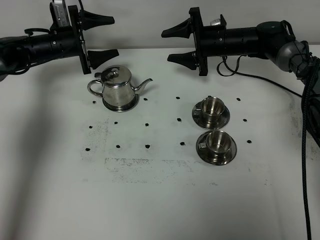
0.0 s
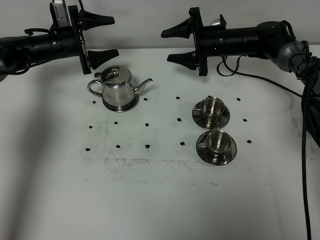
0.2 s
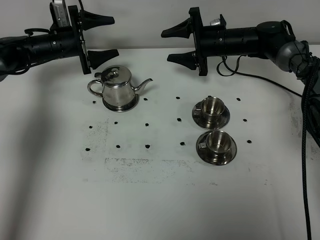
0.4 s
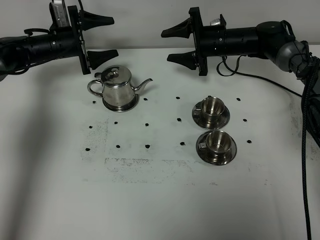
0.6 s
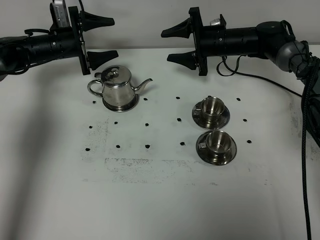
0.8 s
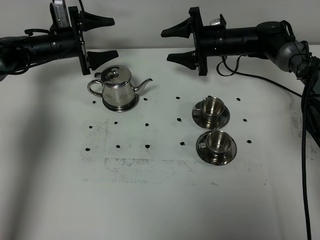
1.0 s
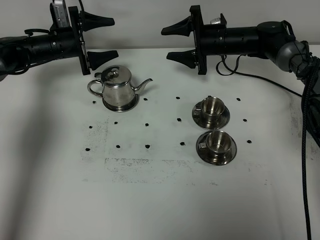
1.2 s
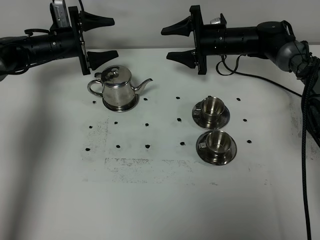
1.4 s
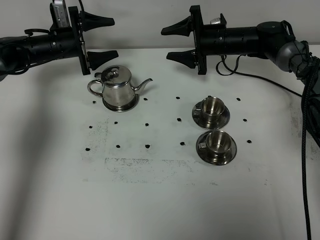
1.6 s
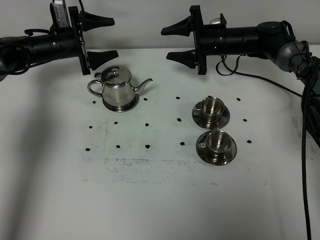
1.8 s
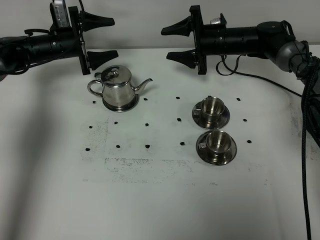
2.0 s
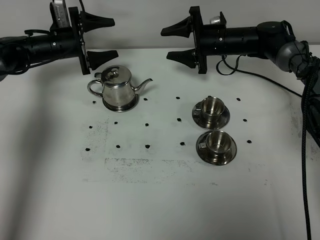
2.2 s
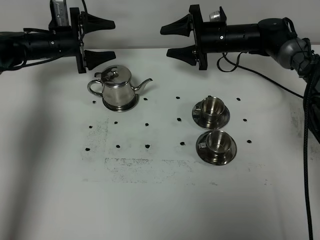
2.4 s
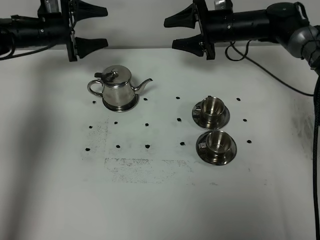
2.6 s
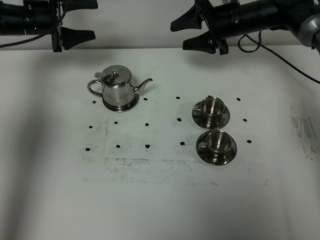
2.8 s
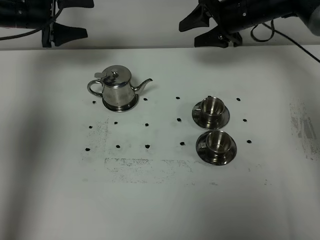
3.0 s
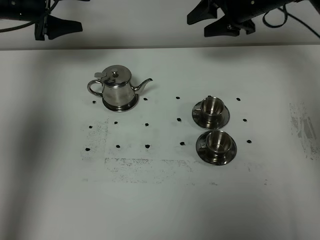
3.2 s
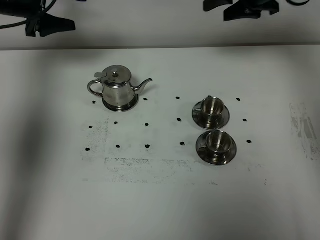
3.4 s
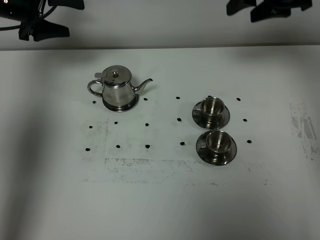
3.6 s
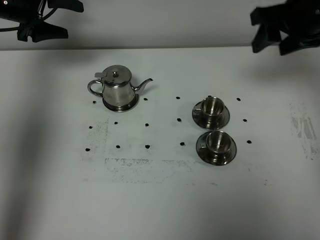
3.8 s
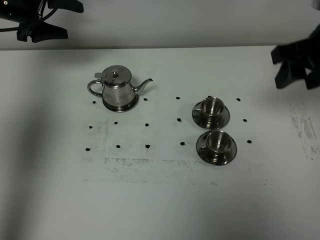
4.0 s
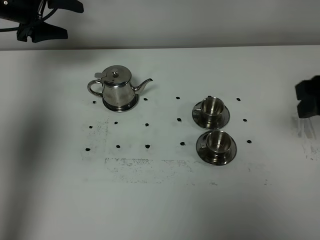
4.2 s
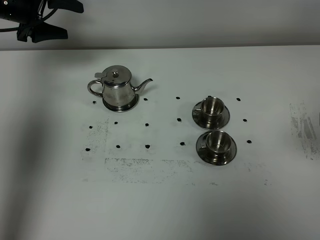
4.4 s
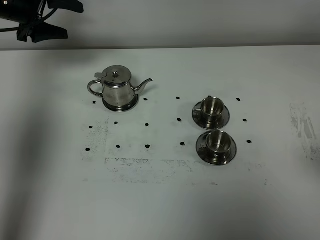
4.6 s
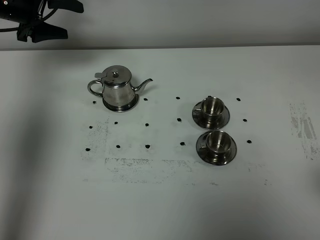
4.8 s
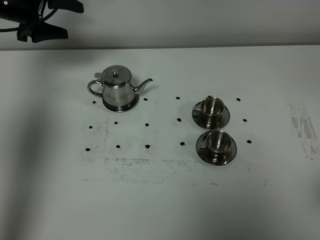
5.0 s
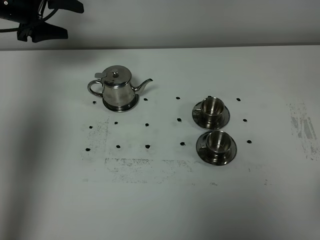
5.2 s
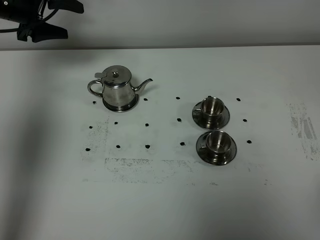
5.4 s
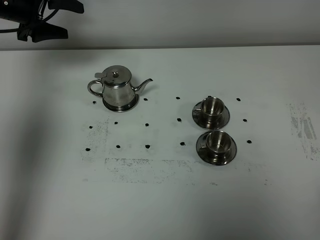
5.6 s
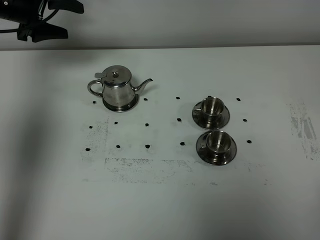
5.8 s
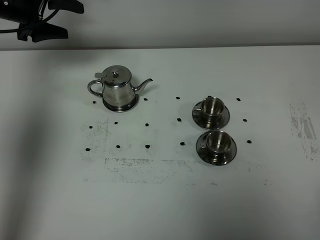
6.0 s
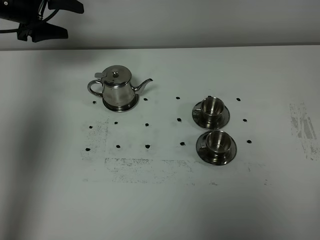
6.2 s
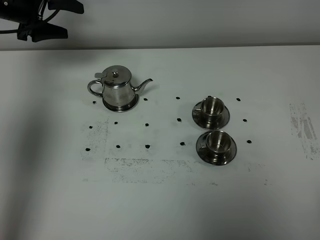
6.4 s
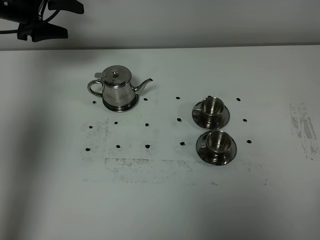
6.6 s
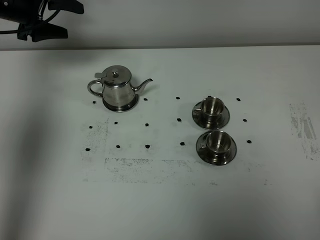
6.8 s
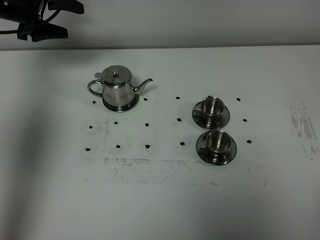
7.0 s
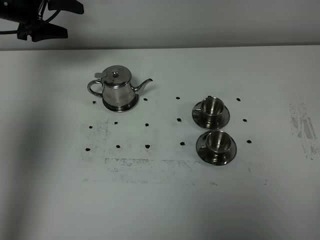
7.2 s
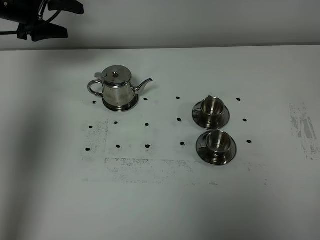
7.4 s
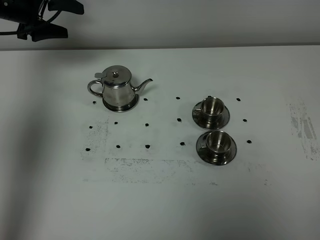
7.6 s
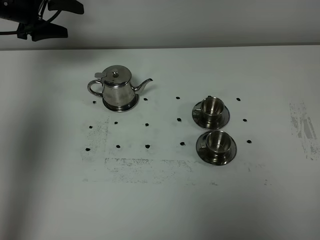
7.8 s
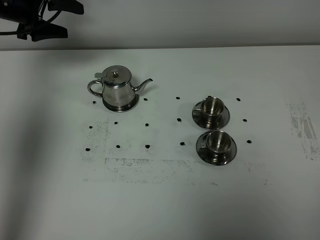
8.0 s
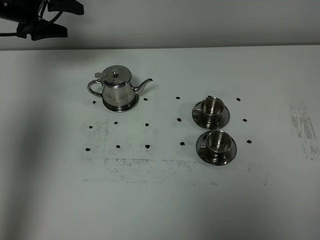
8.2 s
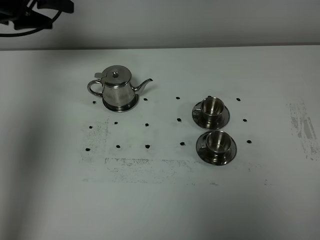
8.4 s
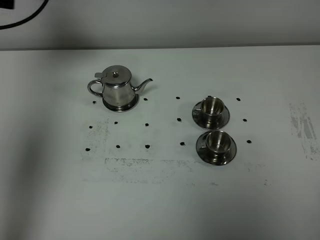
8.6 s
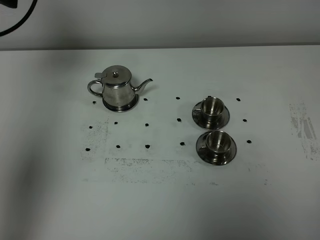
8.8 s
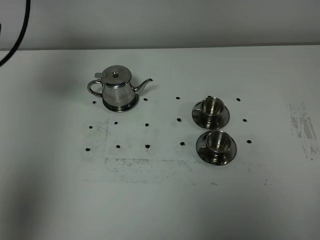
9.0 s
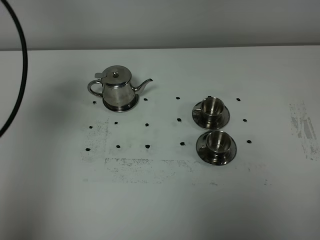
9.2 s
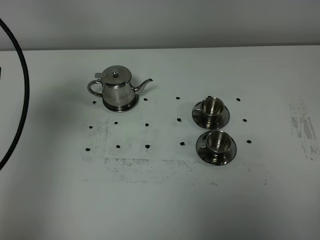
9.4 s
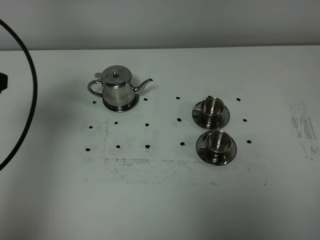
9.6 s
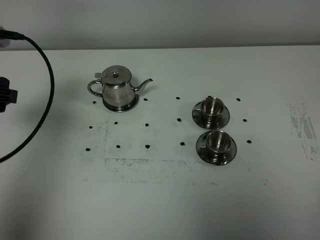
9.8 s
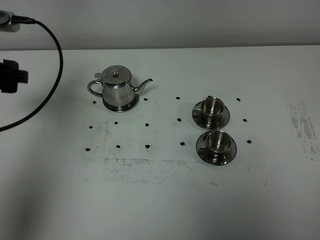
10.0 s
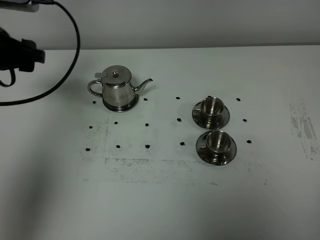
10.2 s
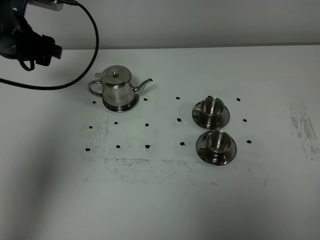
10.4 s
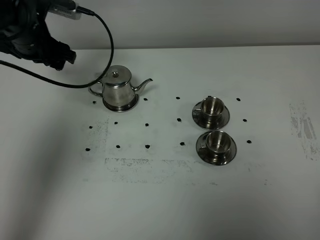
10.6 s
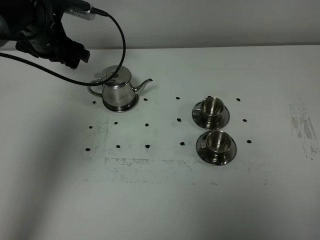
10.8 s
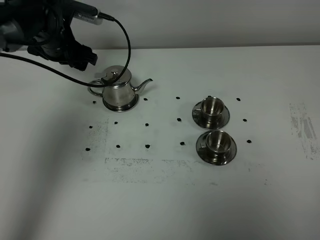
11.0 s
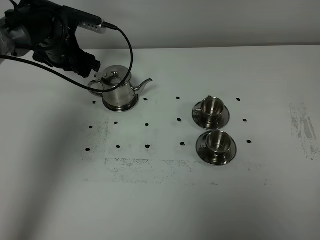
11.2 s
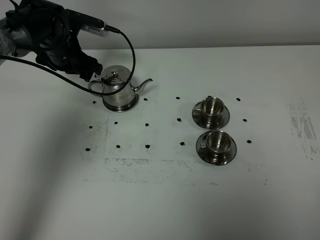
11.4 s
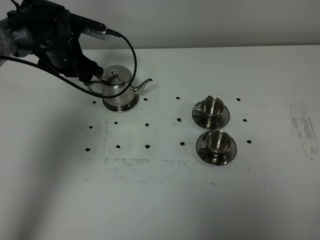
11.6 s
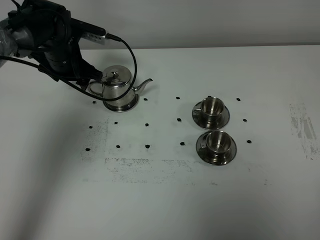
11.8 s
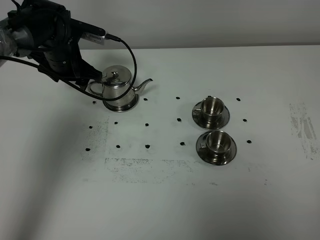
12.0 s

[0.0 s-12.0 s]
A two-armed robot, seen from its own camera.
Task of the whole recording: grasp the stainless steel teapot and pour the tea into the two stainless steel teacups one by one, put the stainless steel teapot back in its original place.
0.0 to 1.6 s: Both grippers stay put.
1.6 to 3.0 s: The two grippers go about 10 cm upward.
3.0 to 4.4 s: The right gripper travels backward by about 35 cm.
4.4 to 6.0 s: The right gripper goes some 15 cm backward.
6.0 to 7.6 s: The two grippers keep their place.
7.6 to 9.0 s: The left gripper is displaced backward and upward by about 25 cm.
9.0 to 10.4 s: The left gripper is displaced downward, forward and to the right by approximately 20 cm.
10.4 to 12.0 s: The left gripper travels downward and forward by about 10 cm.

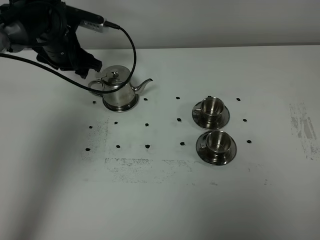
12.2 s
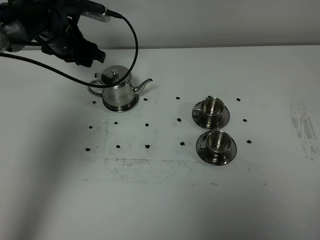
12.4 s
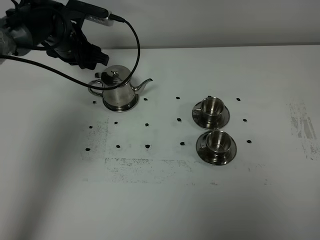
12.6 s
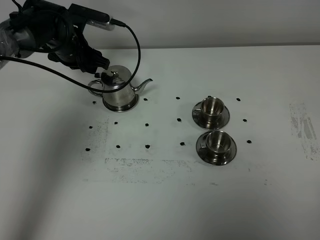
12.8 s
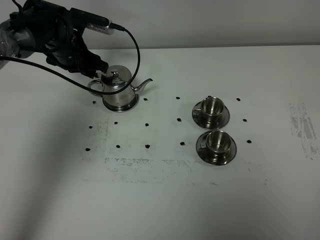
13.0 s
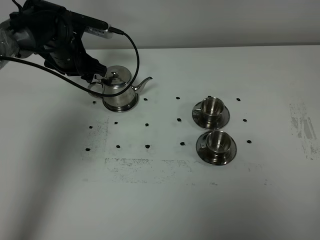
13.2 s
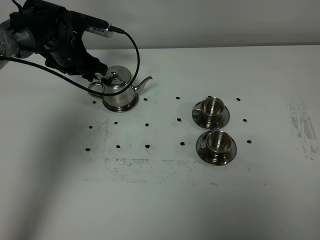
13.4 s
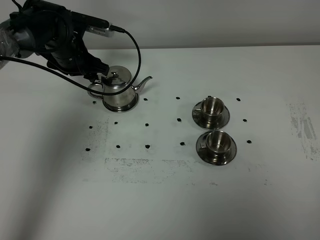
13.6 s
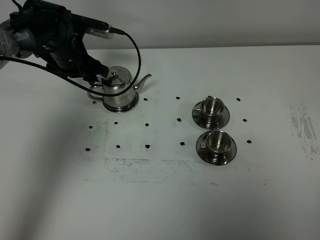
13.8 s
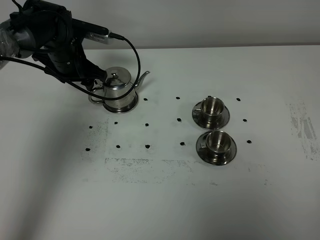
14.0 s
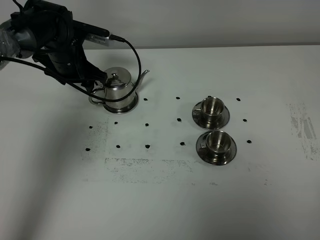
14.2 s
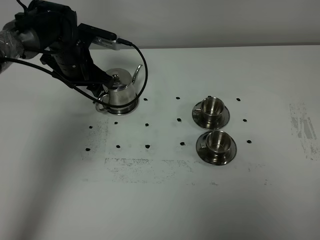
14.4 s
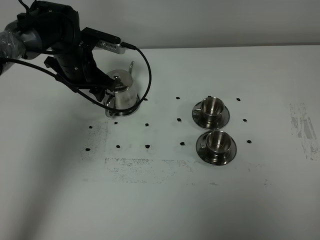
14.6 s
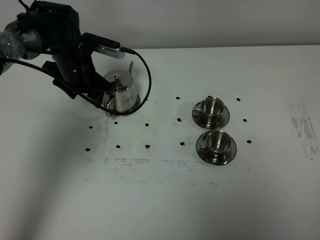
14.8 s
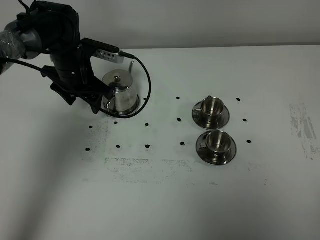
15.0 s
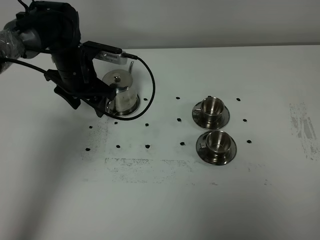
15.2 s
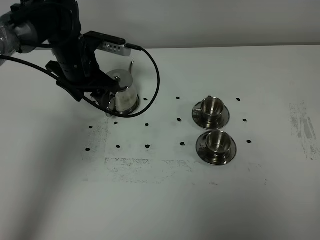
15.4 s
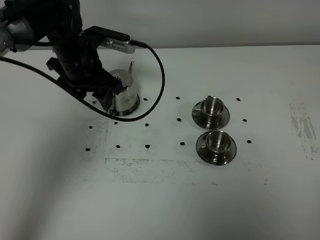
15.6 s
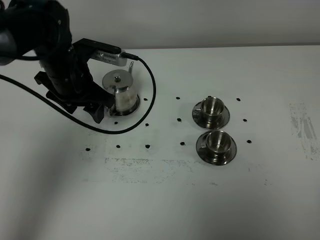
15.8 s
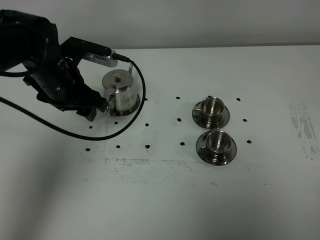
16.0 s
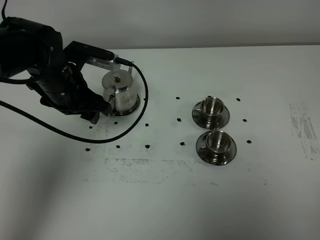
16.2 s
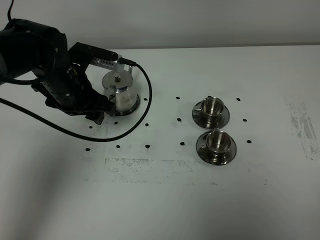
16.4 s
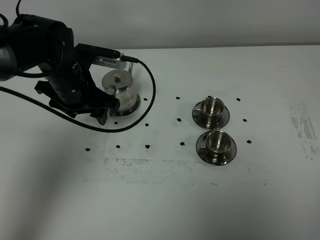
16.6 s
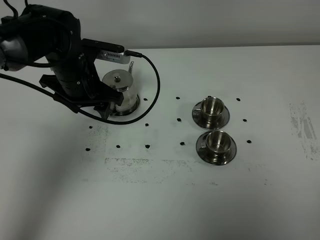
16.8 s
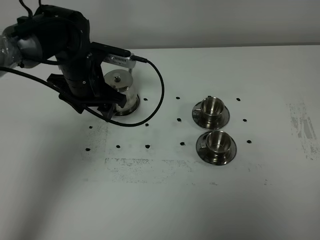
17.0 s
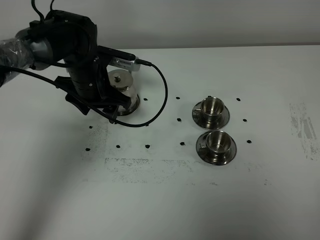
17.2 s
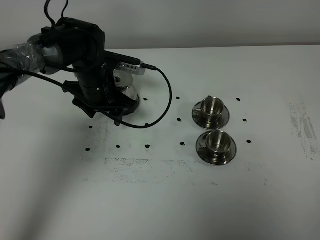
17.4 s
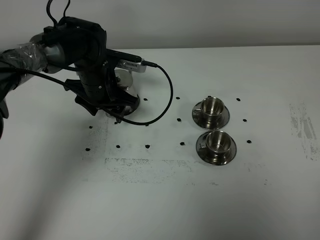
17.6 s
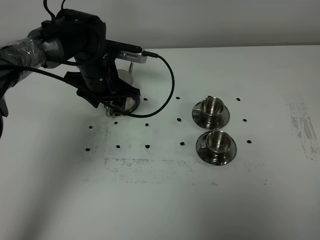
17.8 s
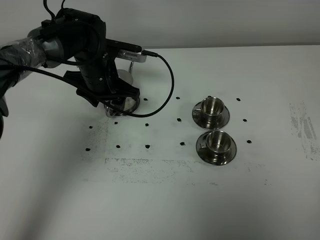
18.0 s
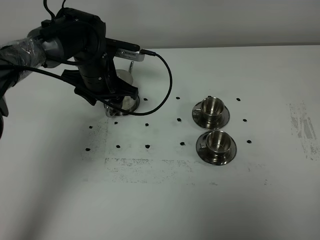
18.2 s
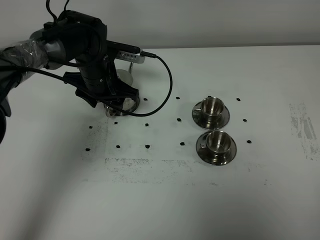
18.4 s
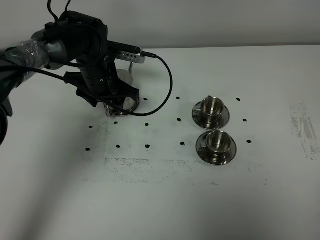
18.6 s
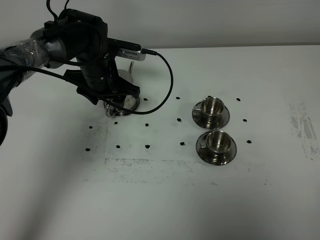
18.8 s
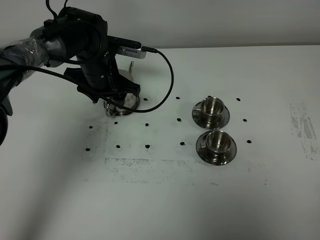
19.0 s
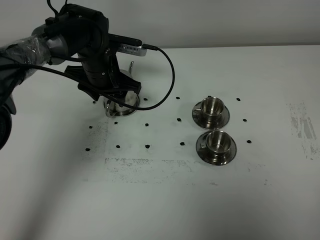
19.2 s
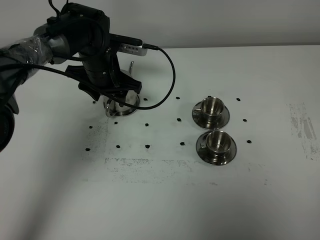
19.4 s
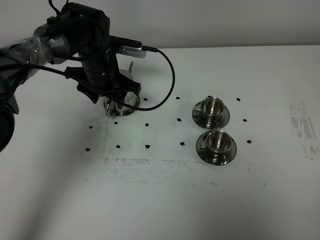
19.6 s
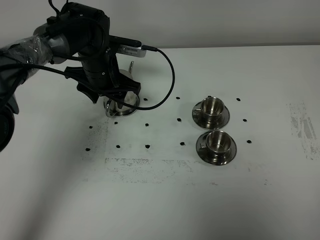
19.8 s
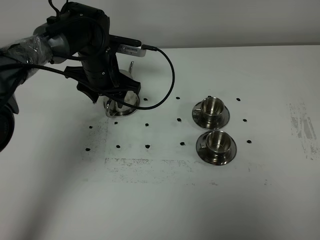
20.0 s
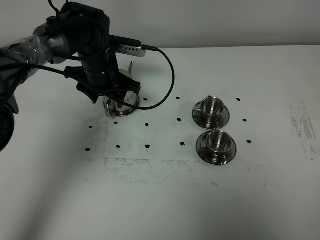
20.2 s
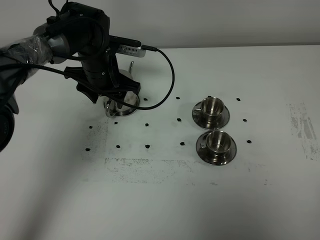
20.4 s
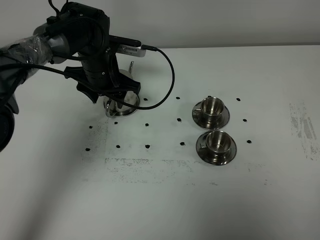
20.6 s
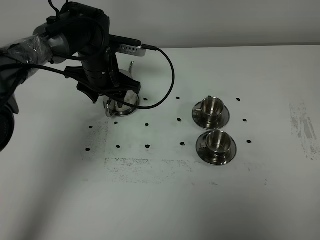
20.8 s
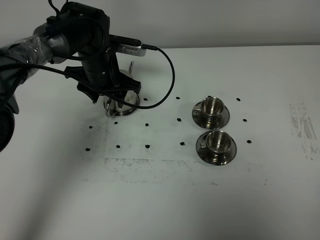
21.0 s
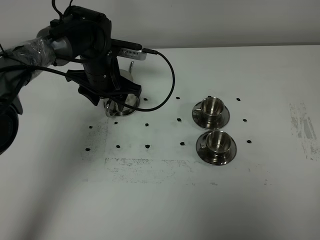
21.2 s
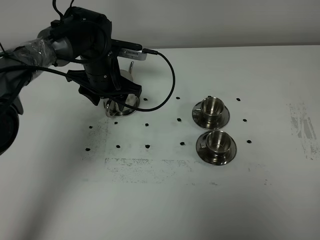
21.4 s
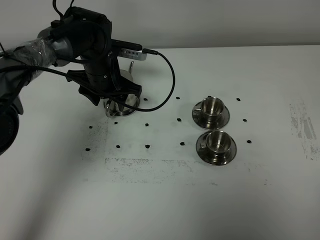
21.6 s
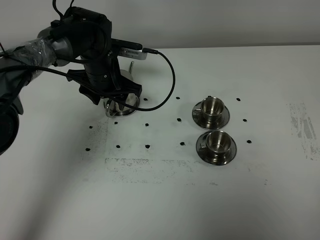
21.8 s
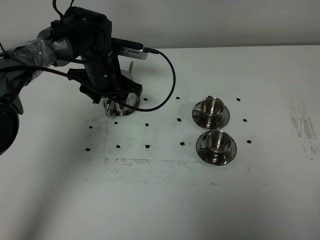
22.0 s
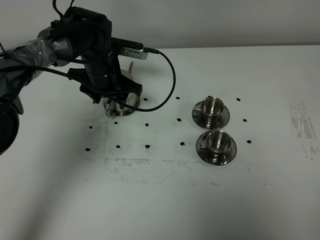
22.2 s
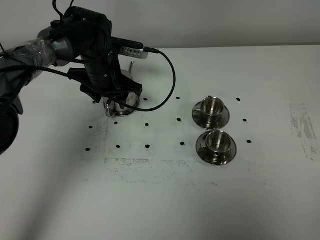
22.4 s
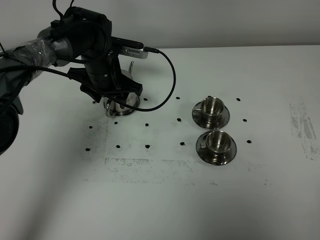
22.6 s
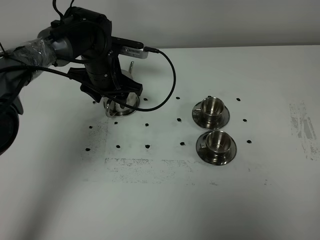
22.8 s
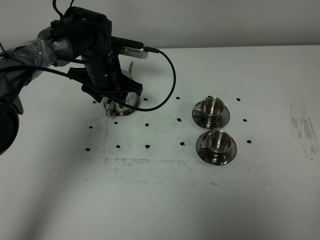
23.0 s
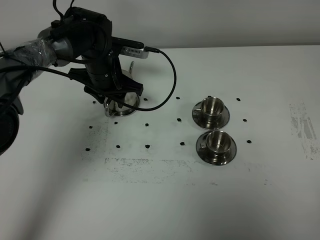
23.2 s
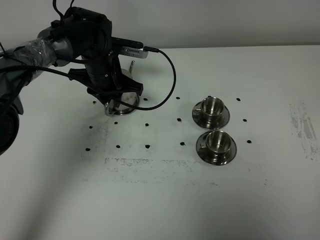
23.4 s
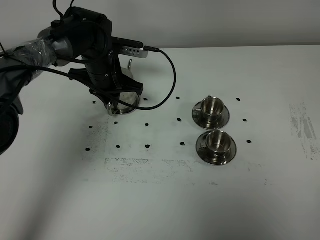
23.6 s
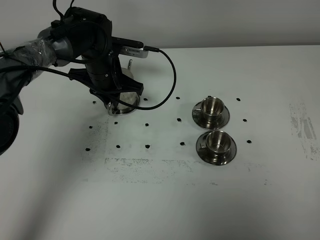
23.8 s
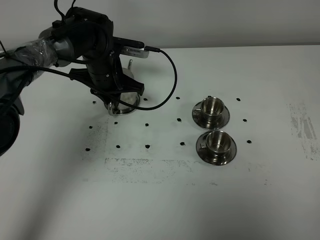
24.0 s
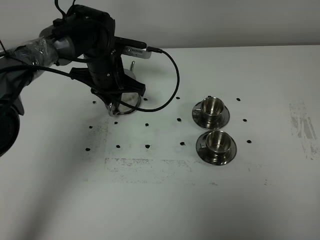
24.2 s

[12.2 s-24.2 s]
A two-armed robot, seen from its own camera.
Task of the whole recording: grasp the stainless steel teapot and pour the tea into the two stainless steel teacups one by one, put the stainless steel teapot back in its original place.
12.2 to 13.8 s: The grippers stay close to where they were, moving slightly.
15.2 to 16.6 s: The left gripper travels backward by approximately 5 cm.
16.6 to 18.2 s: The left gripper is displaced forward by roughly 5 cm.
18.2 to 19.8 s: Both grippers stay about where they are.
19.8 to 22.6 s: Both grippers stay put.
22.6 to 24.2 s: The left gripper closes.
